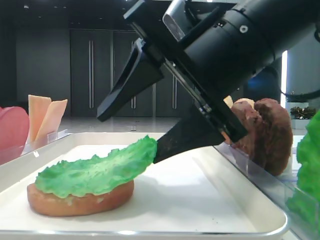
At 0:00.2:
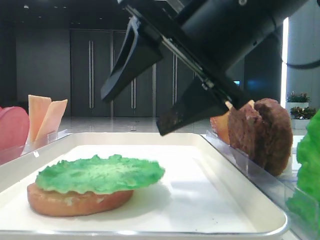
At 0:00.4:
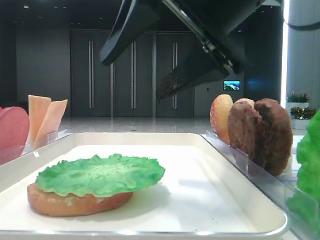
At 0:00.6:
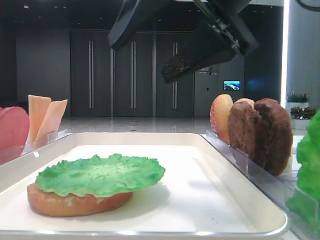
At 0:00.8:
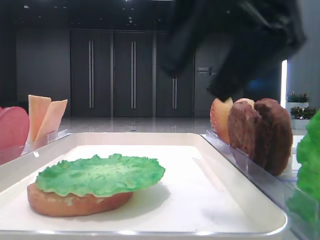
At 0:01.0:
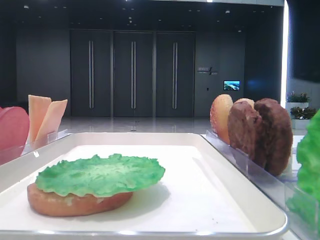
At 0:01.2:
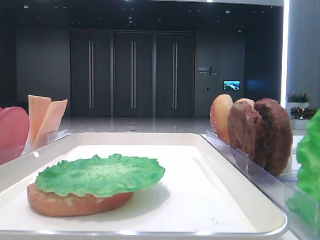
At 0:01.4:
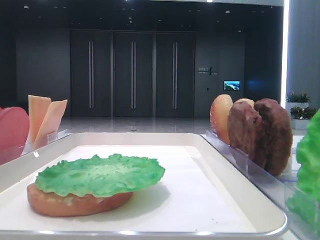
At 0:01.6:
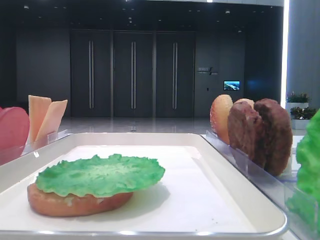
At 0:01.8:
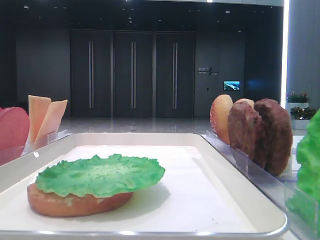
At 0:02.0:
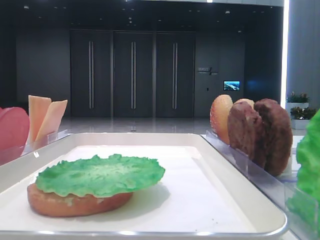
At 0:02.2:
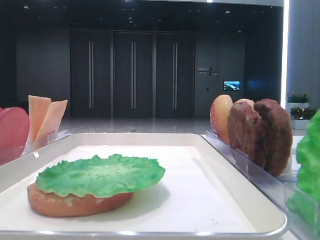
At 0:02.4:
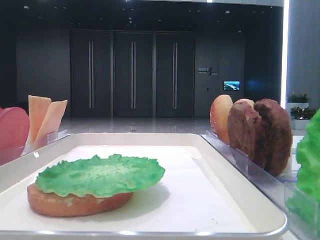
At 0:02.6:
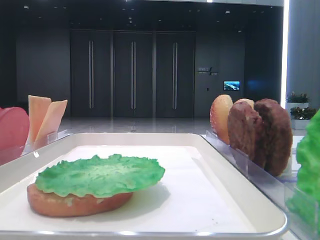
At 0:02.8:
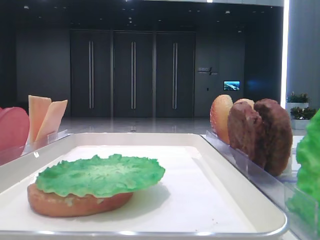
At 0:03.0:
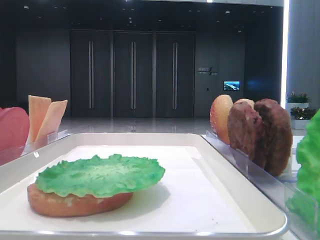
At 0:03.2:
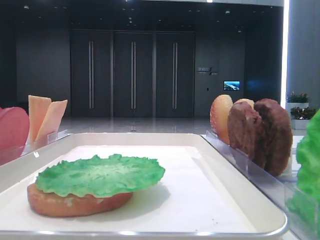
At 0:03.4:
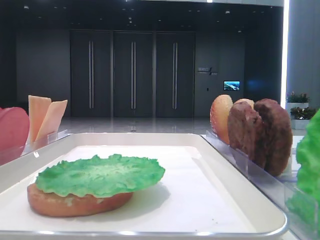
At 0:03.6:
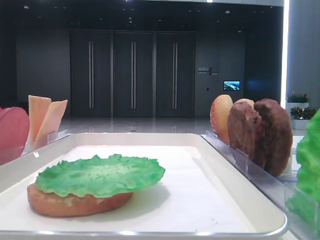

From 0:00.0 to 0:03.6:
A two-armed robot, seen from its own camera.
From 0:00.0 to 0:01.8: The right gripper travels to the right, upward and backward by roughly 35 cm.
